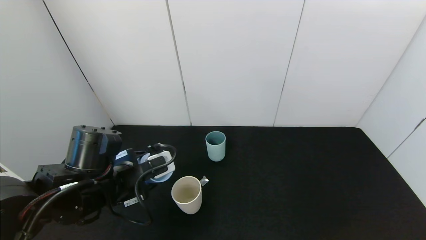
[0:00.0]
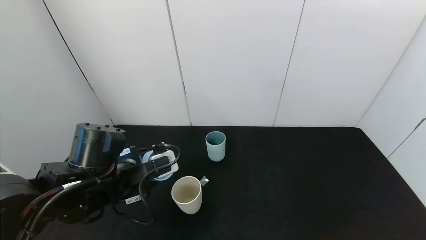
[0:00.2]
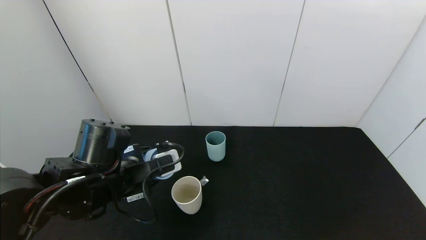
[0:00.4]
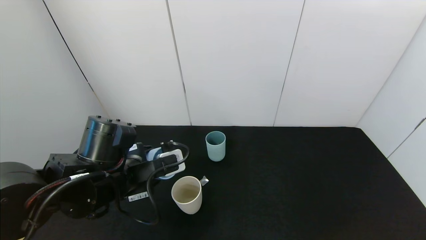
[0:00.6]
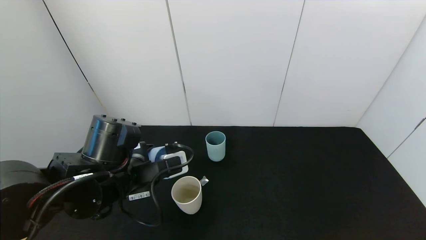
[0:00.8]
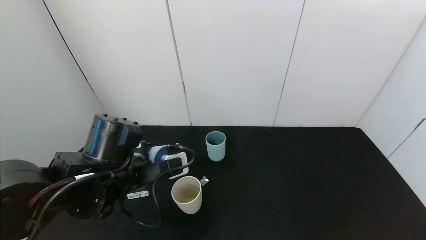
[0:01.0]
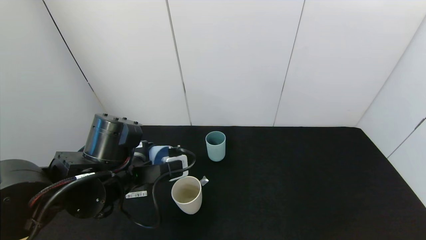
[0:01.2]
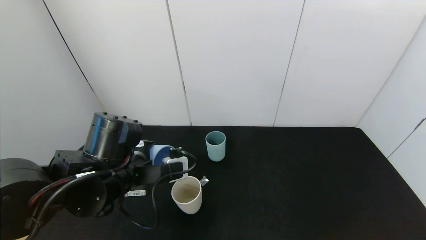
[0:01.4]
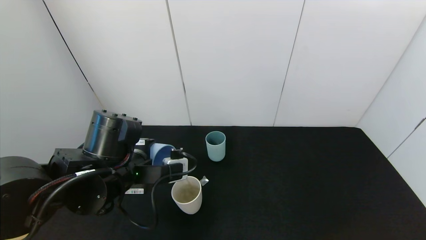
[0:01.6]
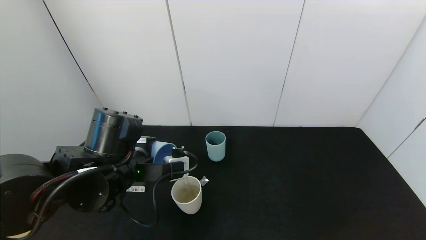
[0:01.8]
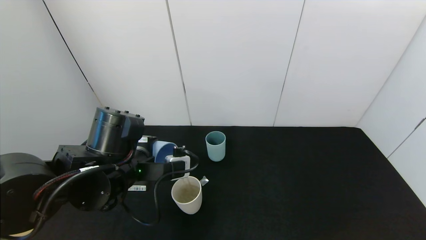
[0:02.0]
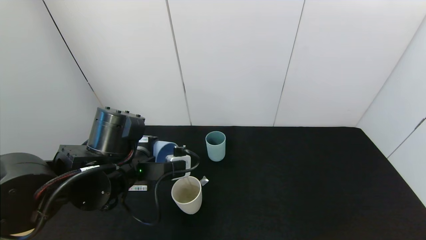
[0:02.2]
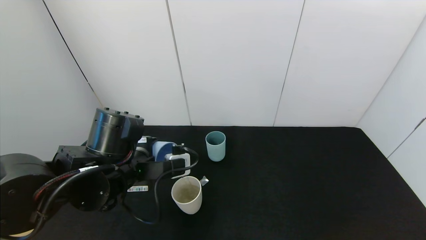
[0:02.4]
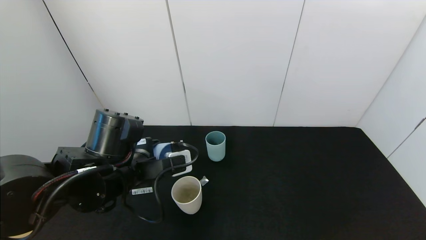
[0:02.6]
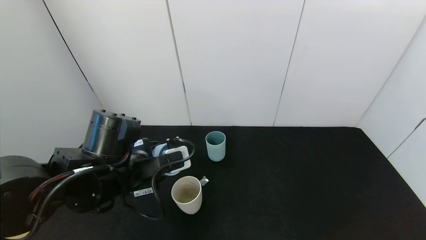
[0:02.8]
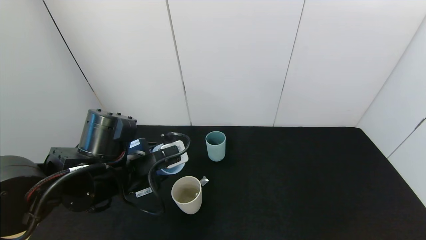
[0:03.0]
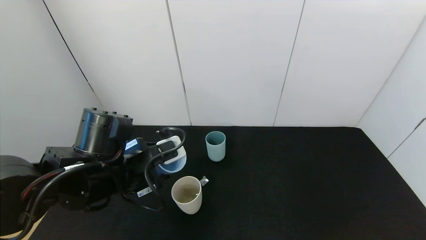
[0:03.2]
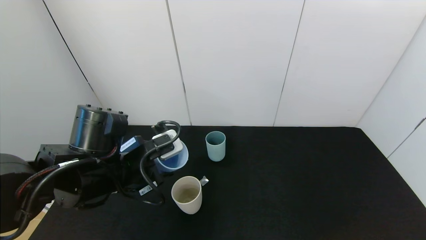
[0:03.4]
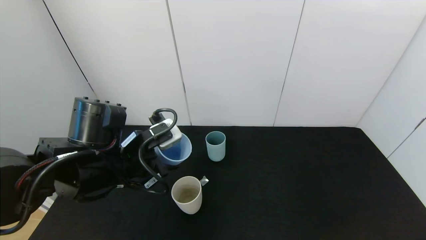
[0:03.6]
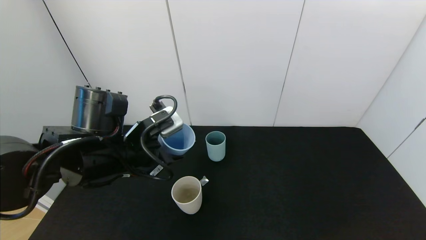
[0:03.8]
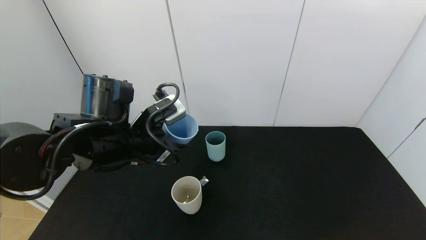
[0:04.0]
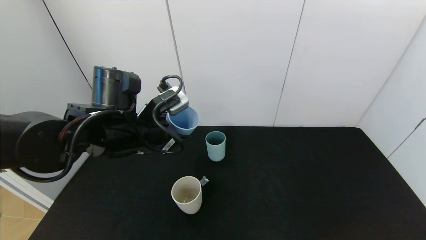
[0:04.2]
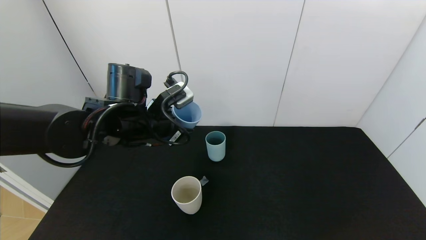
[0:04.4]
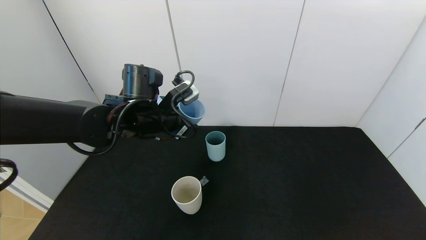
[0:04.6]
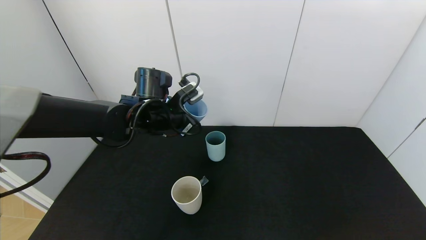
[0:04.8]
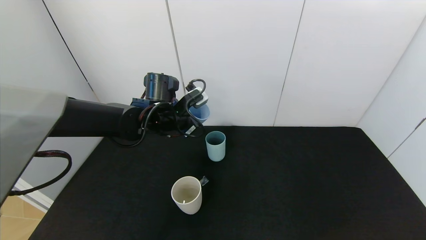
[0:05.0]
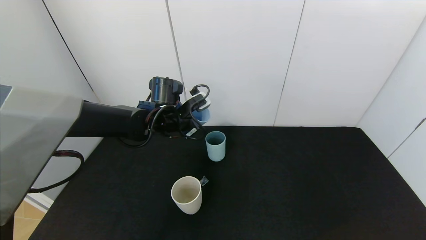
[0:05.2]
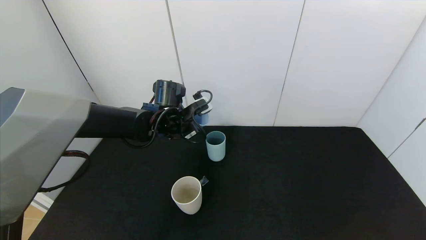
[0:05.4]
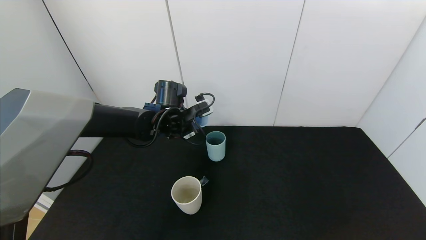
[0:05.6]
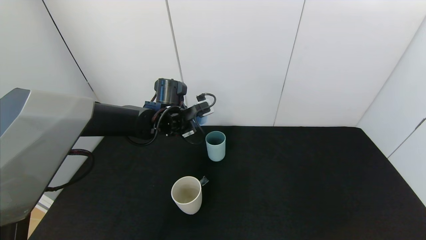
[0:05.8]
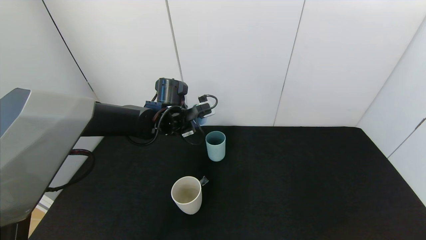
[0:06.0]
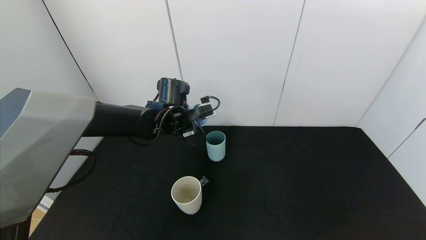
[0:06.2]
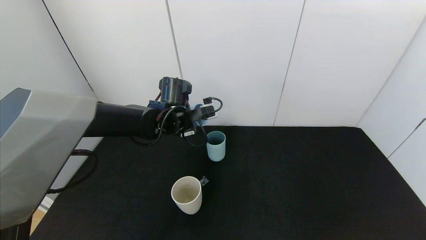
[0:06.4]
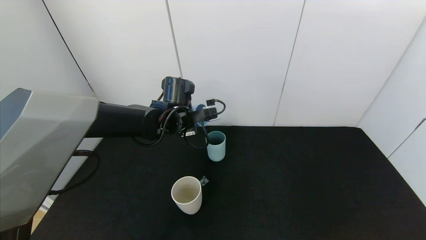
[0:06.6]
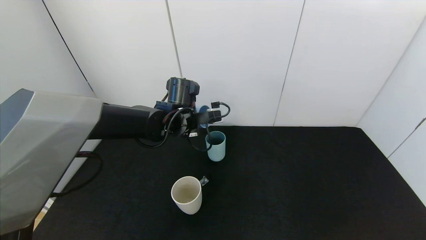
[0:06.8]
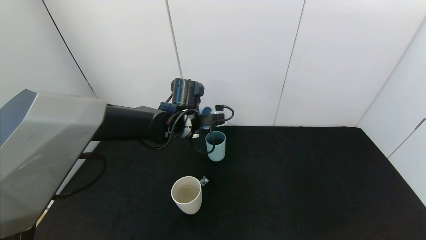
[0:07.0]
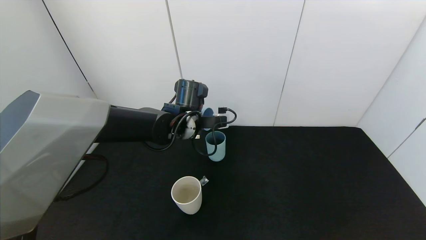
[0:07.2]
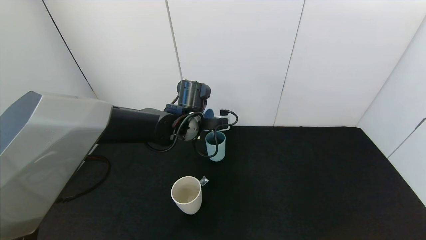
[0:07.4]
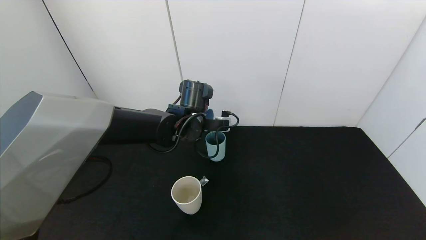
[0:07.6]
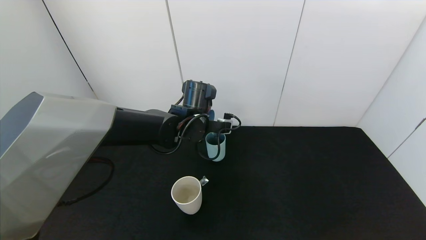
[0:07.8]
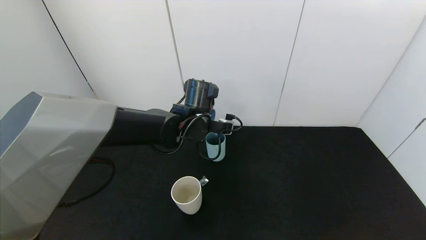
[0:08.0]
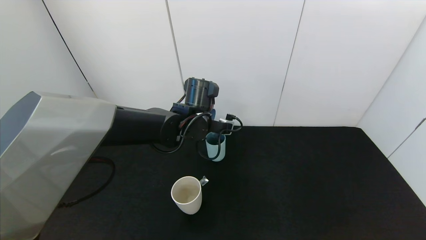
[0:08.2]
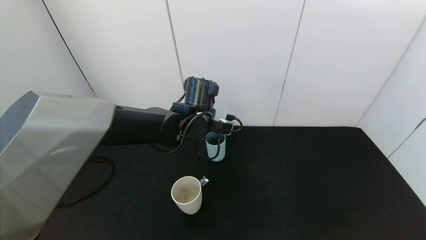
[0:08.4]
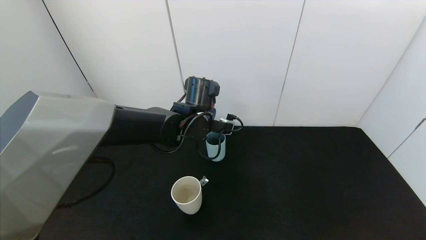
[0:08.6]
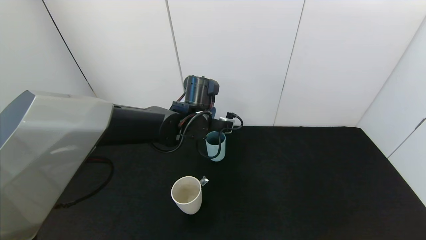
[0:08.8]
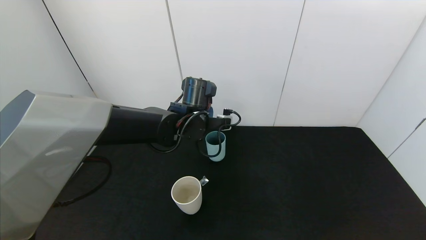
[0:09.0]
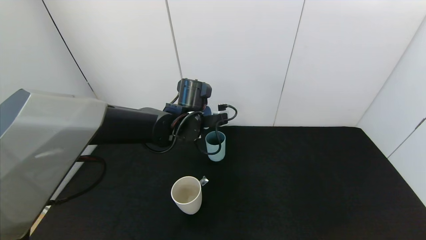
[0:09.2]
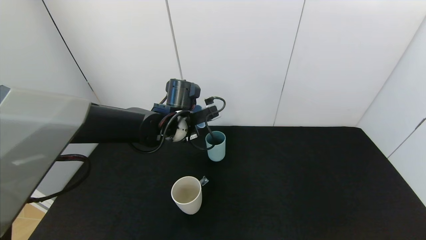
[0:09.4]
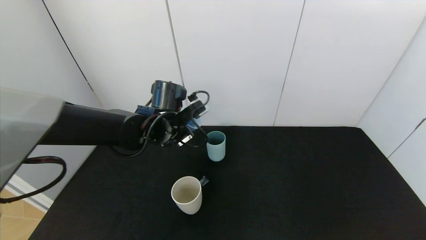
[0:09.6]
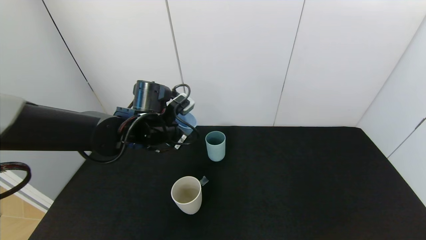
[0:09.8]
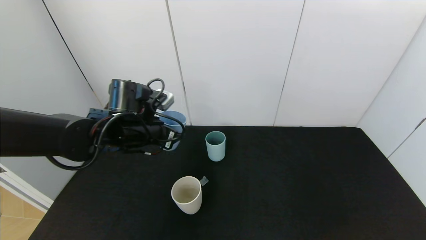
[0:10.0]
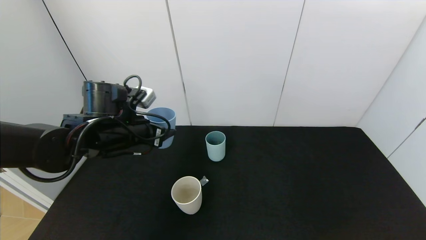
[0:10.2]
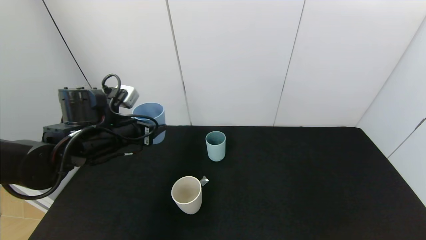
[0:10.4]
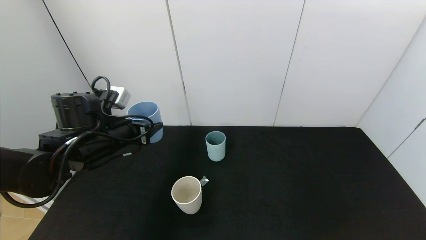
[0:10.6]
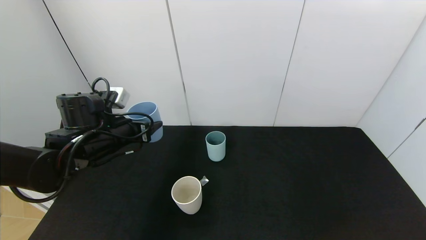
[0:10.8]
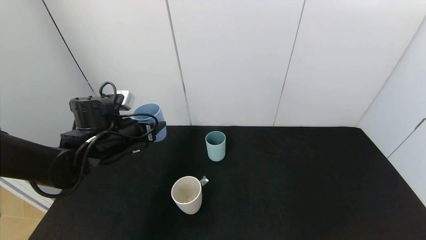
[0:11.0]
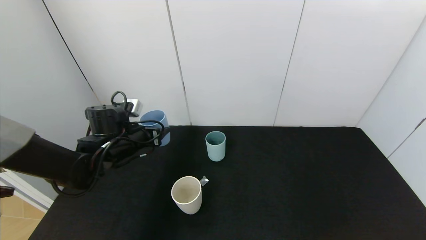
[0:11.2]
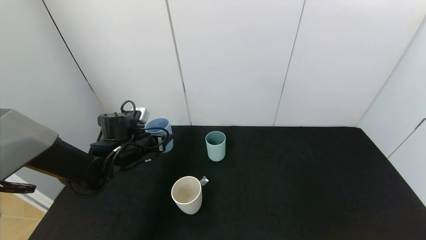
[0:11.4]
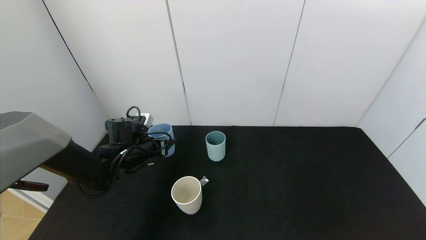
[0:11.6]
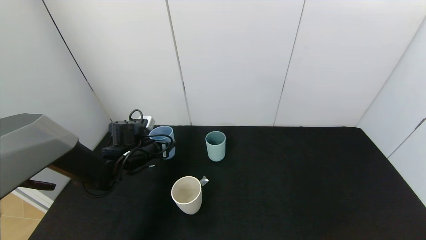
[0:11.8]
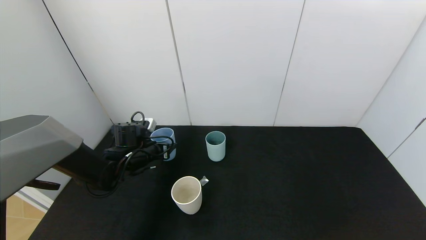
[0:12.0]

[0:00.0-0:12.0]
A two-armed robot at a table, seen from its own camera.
Task of the whole recording: use the gripper to pour the water into the other two cups on black table.
Step, 0:00.0 to 0:02.8: Pour water from blue cup to white cup with the left gripper.
Step, 0:03.0 to 0:09.6: Pour water from blue cup to green cup with the left gripper.
0:03.0 to 0:04.4: The left gripper heads forward, covering roughly 10 cm.
0:04.4 to 0:06.0: The left gripper is displaced forward by about 10 cm.
0:06.0 to 0:07.6: The left gripper goes about 5 cm to the right.
0:07.6 to 0:09.0: The grippers stay close to where they were, moving slightly.
0:09.0 to 0:10.4: The left gripper travels to the left and backward by about 20 cm.
0:10.4 to 0:12.0: The left gripper heads downward and forward, covering approximately 15 cm.

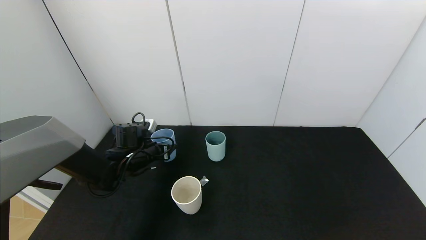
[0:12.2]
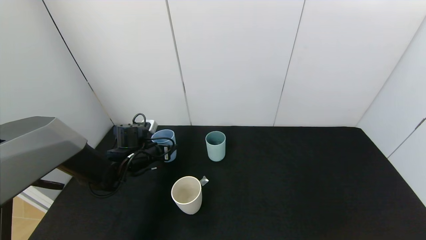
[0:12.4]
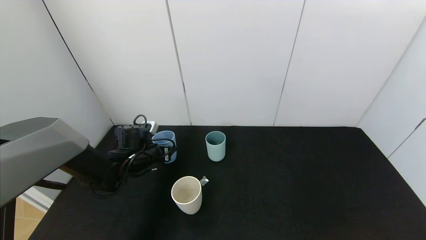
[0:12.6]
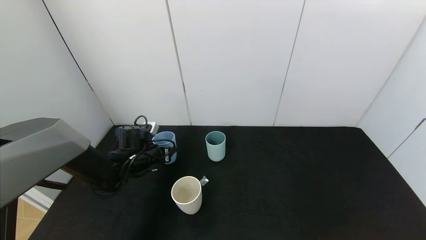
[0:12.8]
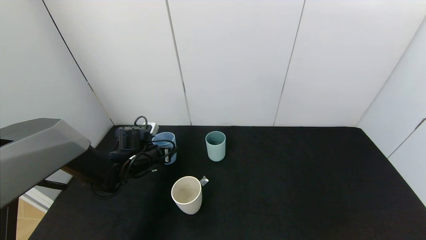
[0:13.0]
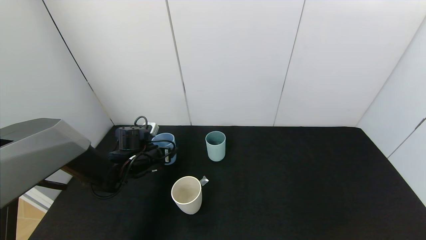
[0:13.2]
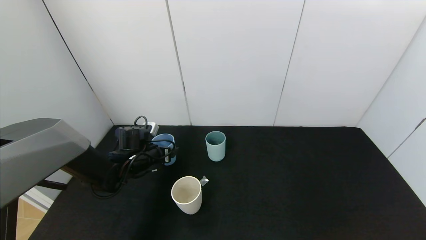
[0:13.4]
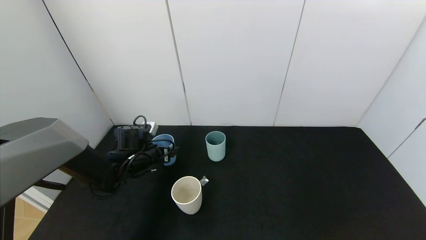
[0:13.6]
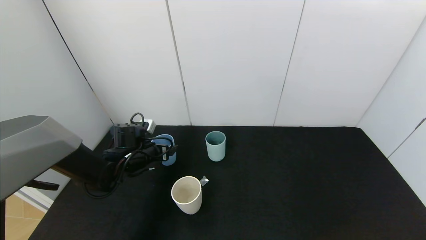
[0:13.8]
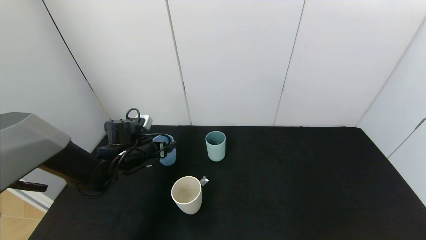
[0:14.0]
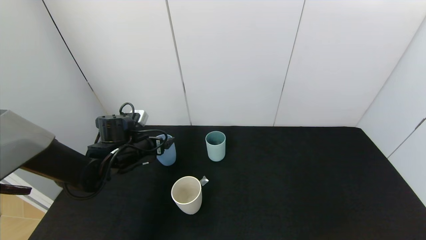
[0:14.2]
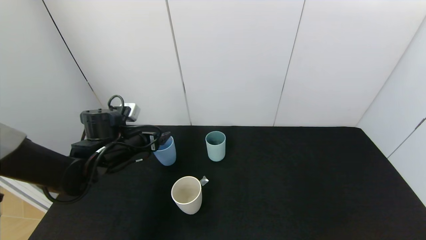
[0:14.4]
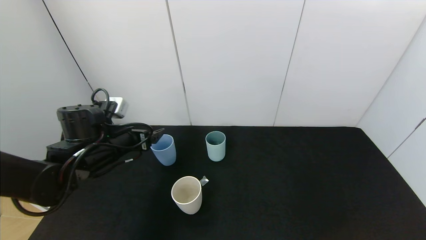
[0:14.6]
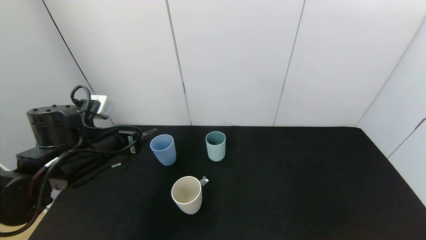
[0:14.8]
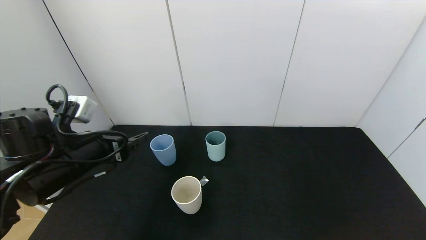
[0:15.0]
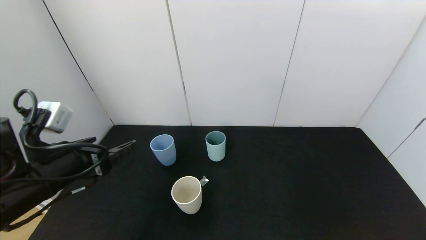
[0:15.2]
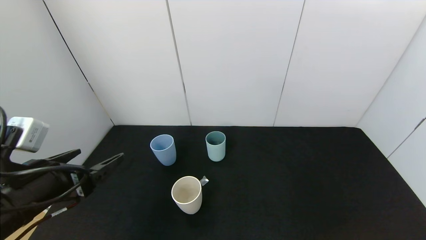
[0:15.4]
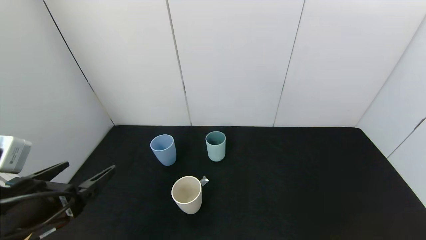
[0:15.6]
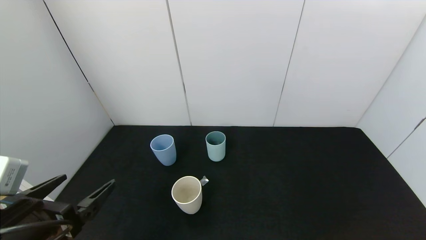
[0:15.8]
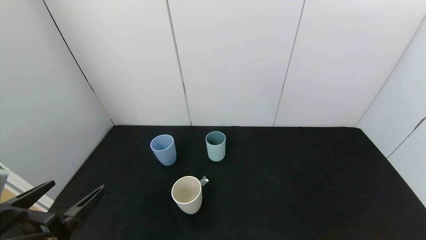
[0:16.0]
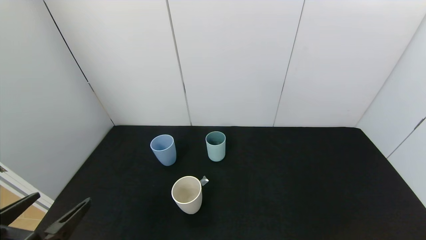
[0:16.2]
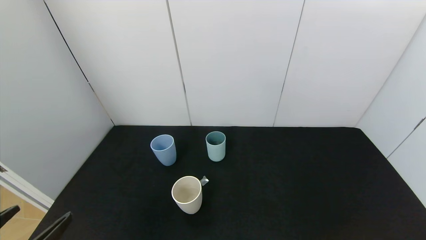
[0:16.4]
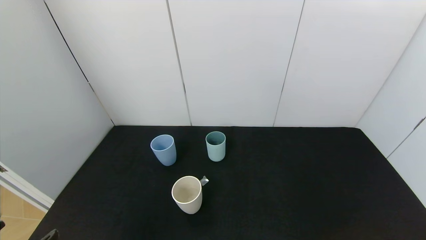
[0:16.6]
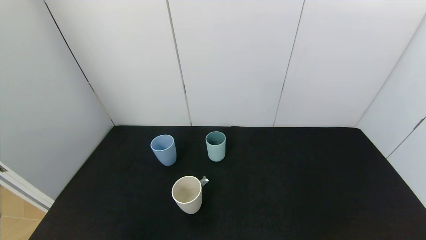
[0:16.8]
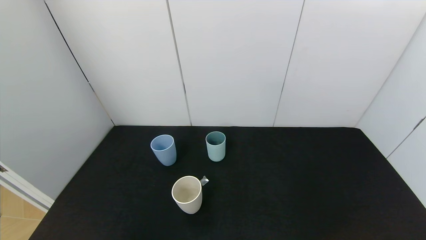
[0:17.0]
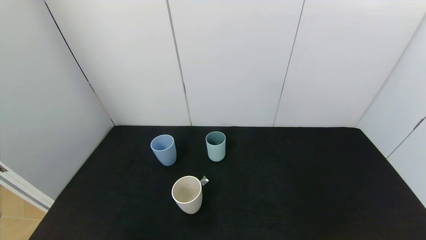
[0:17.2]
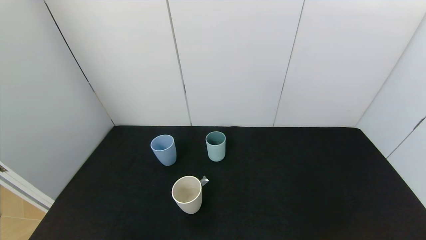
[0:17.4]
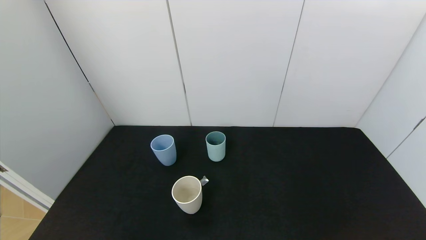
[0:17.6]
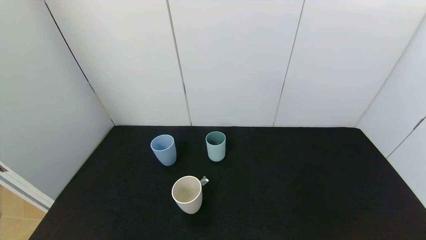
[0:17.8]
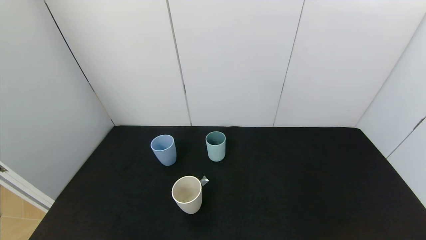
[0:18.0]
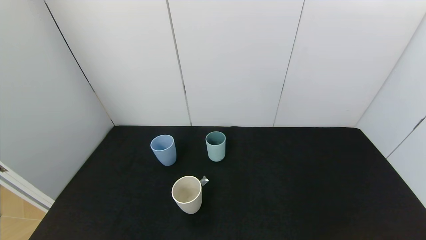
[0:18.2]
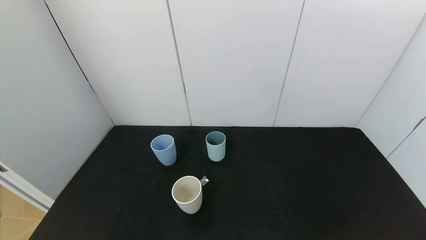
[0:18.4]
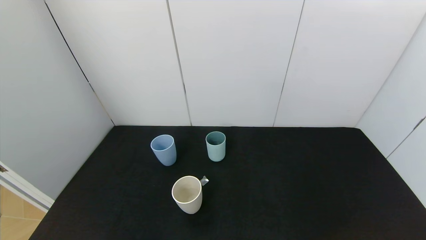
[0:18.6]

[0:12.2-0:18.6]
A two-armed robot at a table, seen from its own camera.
Task of the whole recording: use the gripper to pour the water into the other two cups on black table.
Step, 0:12.2 to 0:14.8: Place the blue cup with the left gripper.
0:12.2 to 0:13.8: The left gripper opens up.
0:13.8 to 0:15.4: The left gripper shifts about 25 cm backward and upward.
0:15.4 to 0:17.0: The left gripper travels backward by approximately 15 cm.
